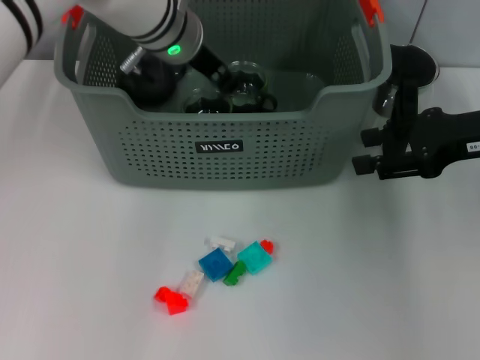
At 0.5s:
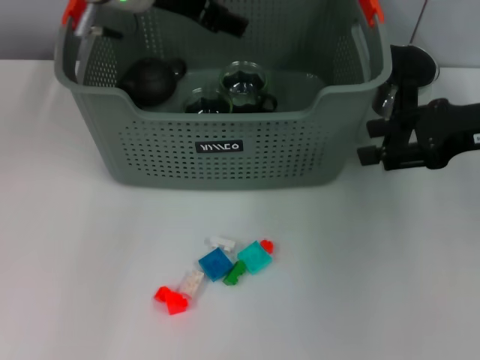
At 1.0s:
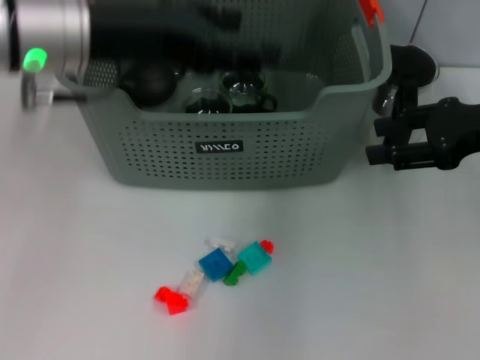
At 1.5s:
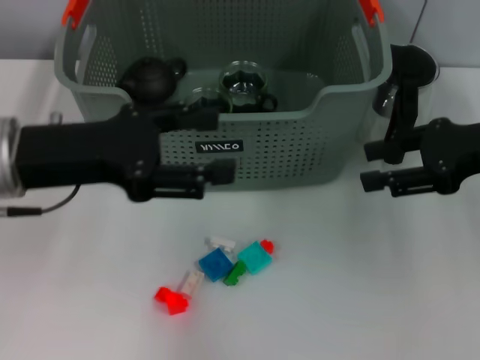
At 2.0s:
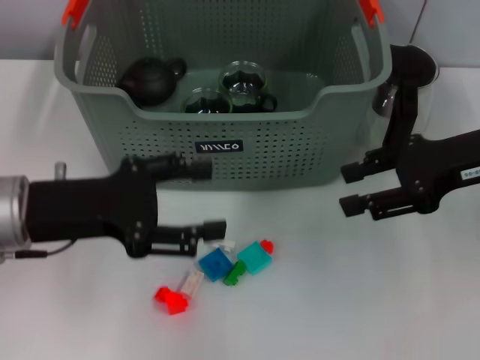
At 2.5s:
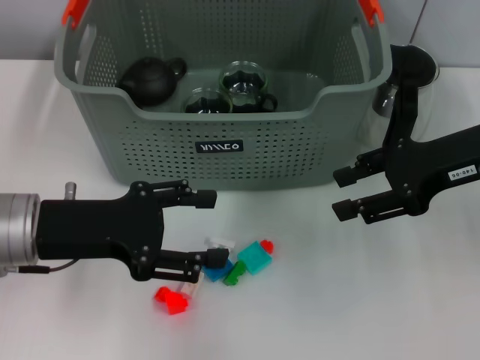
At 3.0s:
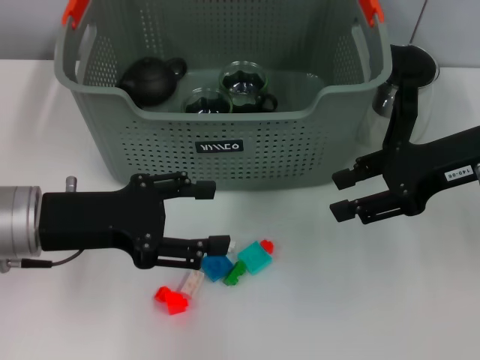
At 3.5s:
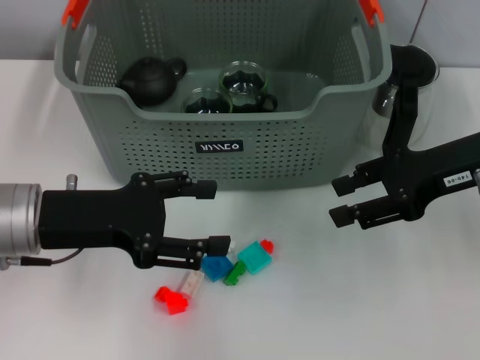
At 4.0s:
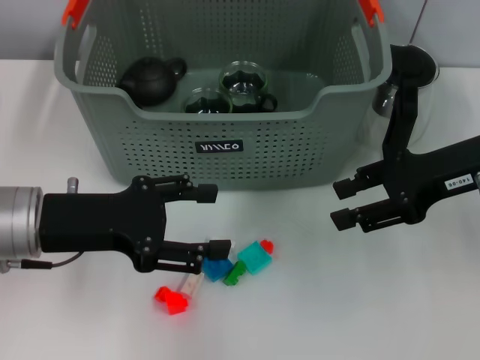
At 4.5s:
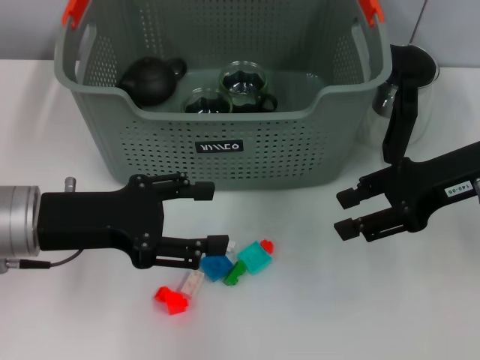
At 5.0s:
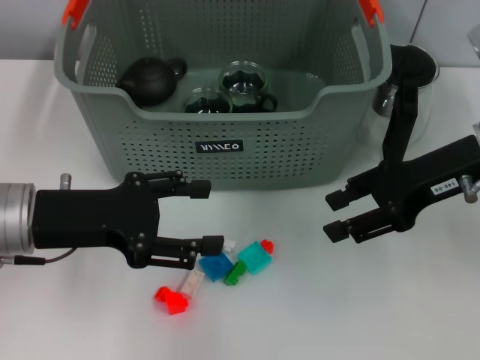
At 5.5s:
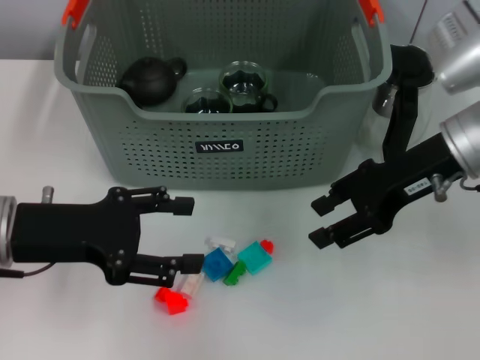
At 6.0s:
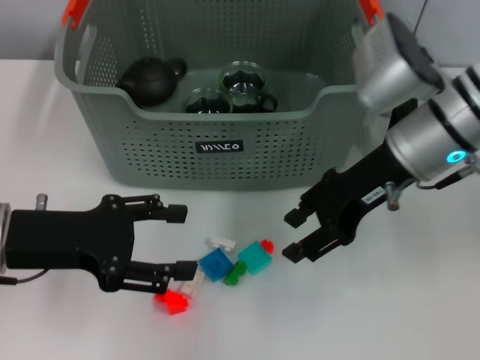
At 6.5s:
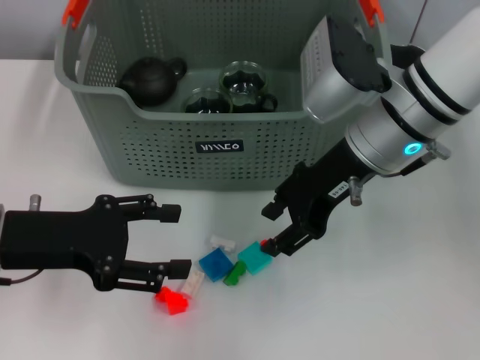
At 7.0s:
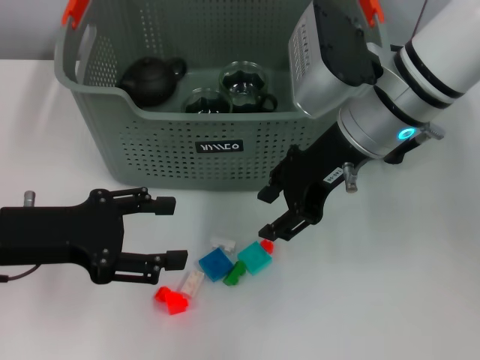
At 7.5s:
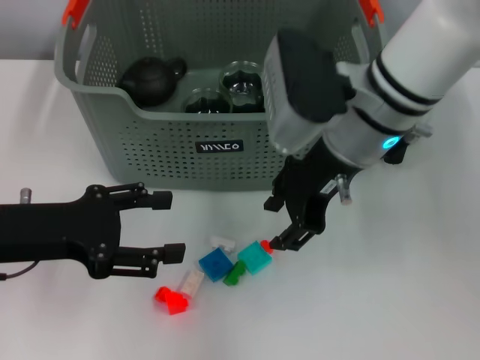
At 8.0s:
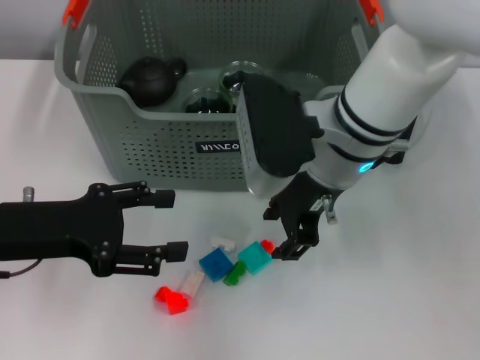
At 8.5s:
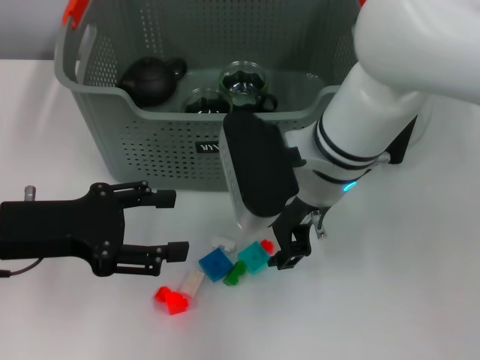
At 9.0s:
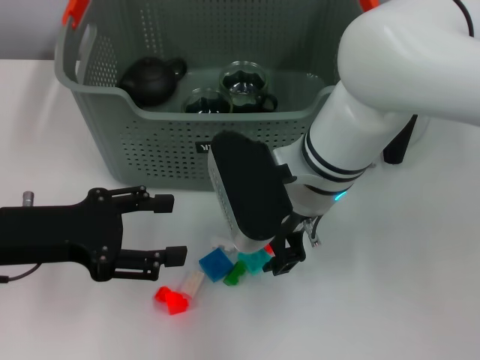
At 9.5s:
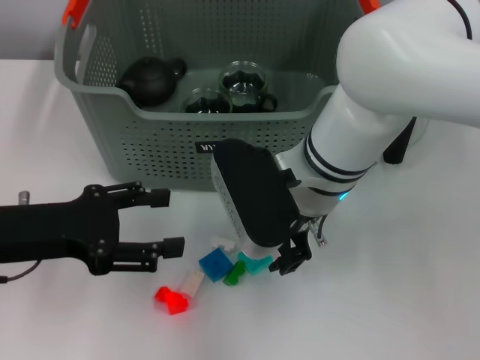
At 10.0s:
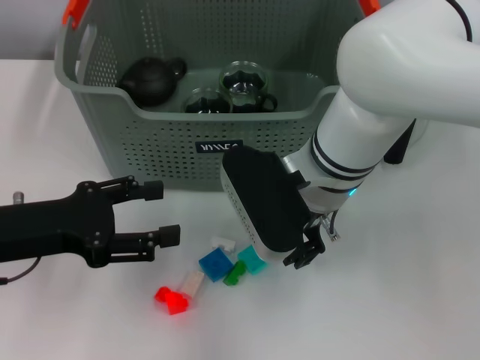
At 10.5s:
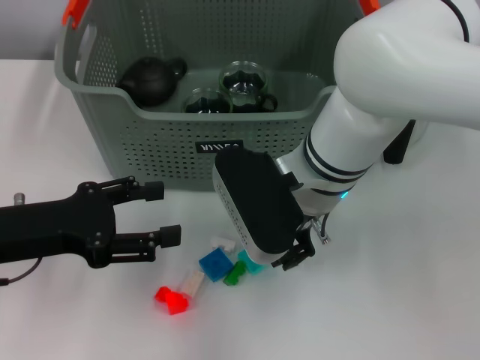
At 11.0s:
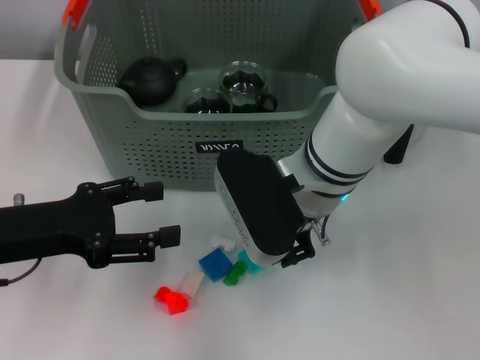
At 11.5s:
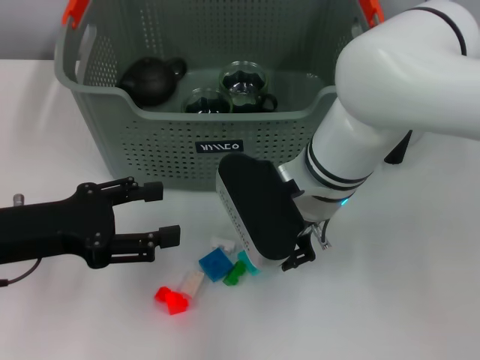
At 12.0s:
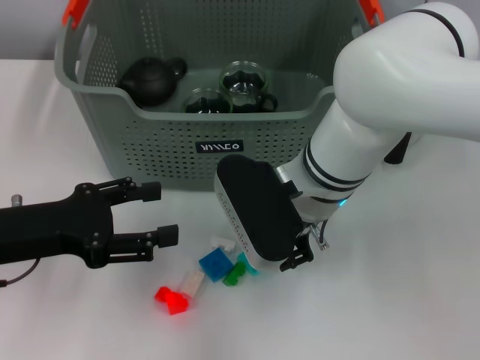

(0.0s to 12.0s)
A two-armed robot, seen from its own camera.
Task of the whole recording: pick up the teacup on the table and place it into the storage bin, pick up the block on the table and place it into the storage bin.
0.0s - 2.0s: The left gripper travels backward and to the left by roughly 25 cm, and opens.
2.0s - 4.0s: The grippers move only a little.
4.0s - 6.0s: The right gripper shifts some 10 cm to the left.
6.0s - 8.0s: The right gripper shifts about 10 cm to the left.
10.0s - 12.0s: Neither gripper changes place.

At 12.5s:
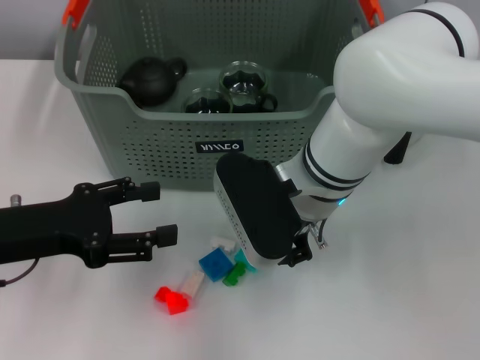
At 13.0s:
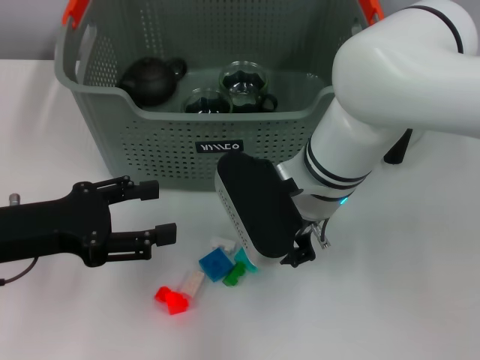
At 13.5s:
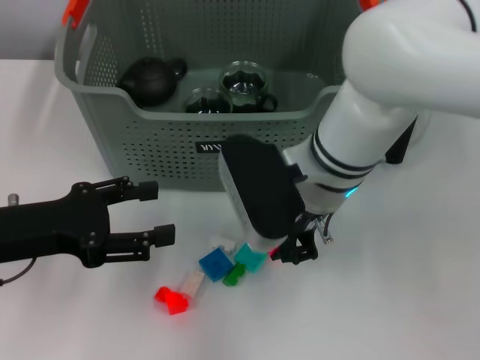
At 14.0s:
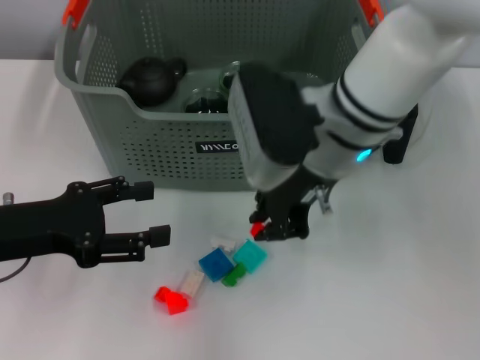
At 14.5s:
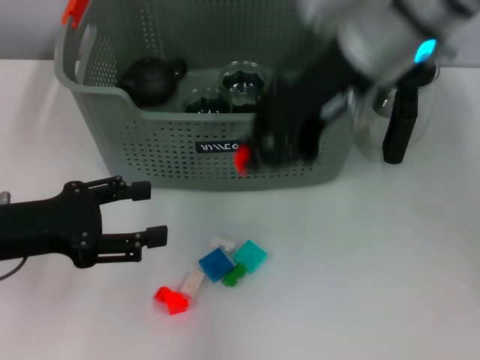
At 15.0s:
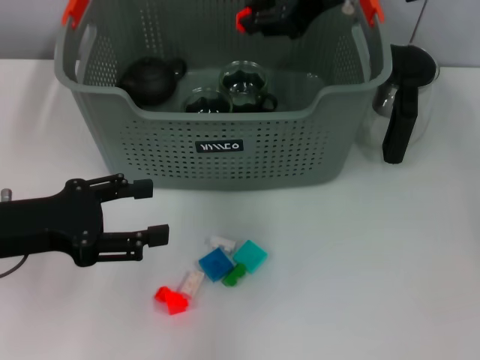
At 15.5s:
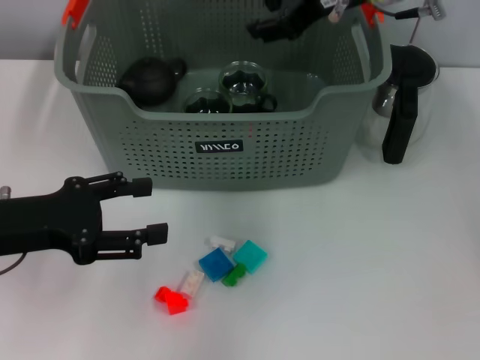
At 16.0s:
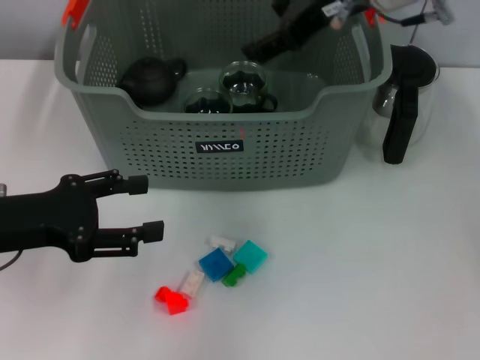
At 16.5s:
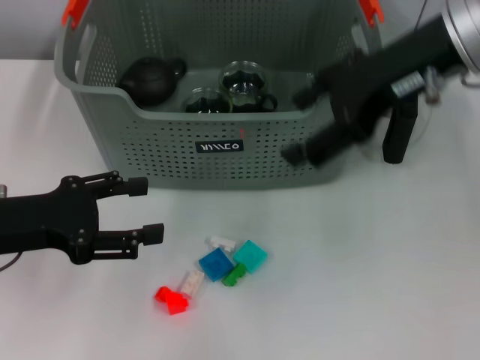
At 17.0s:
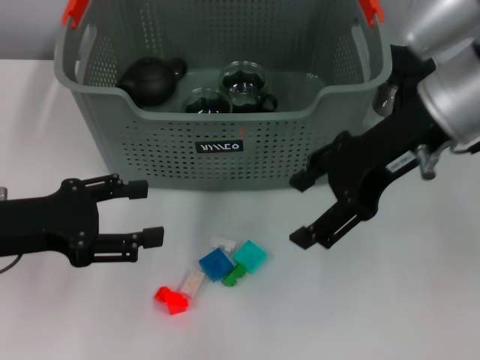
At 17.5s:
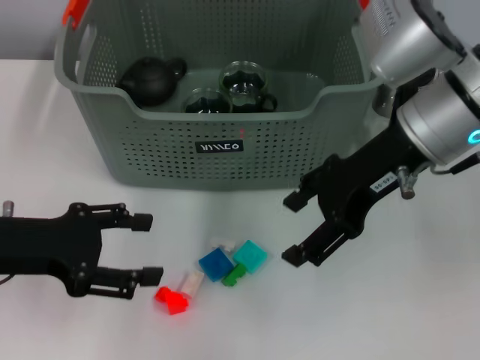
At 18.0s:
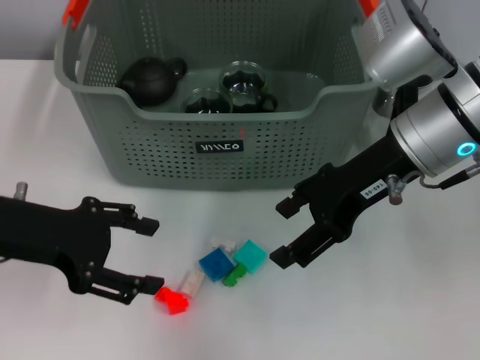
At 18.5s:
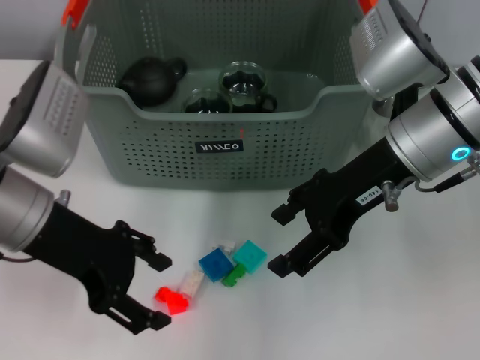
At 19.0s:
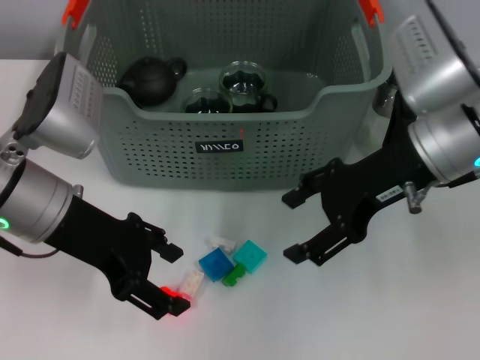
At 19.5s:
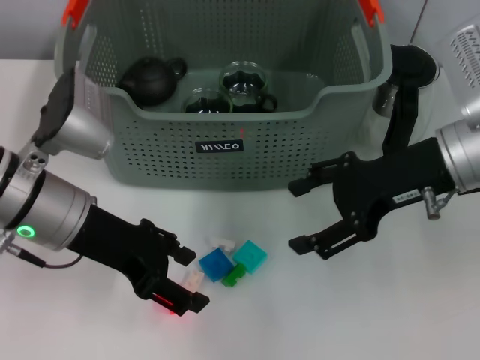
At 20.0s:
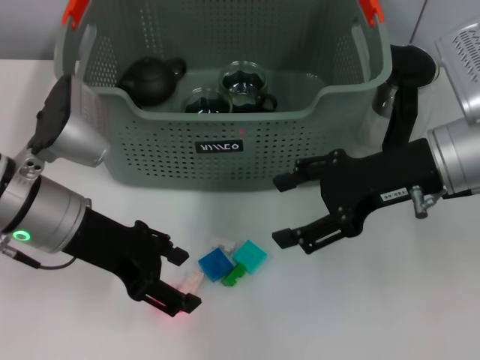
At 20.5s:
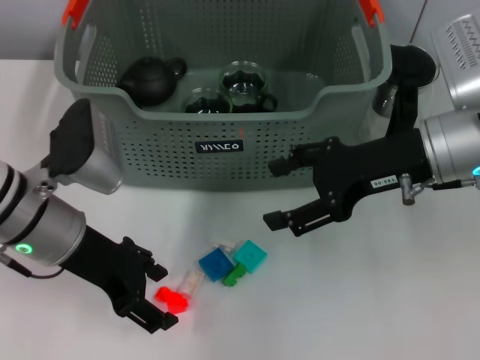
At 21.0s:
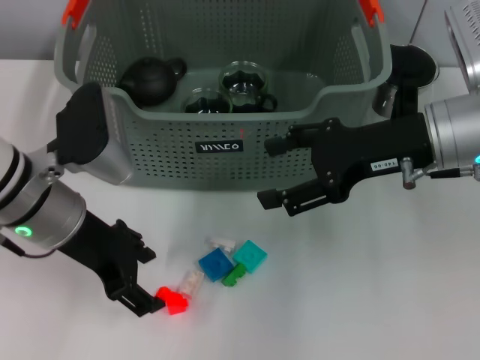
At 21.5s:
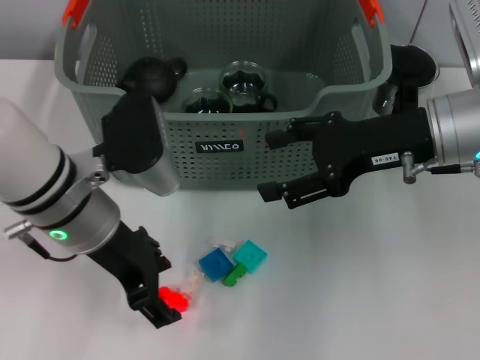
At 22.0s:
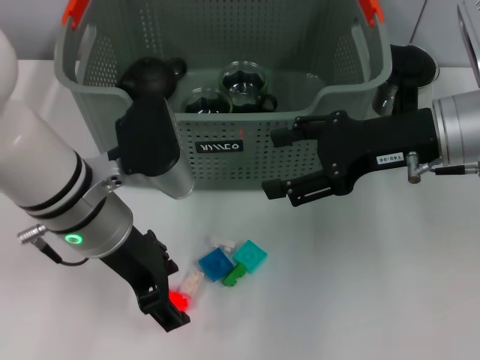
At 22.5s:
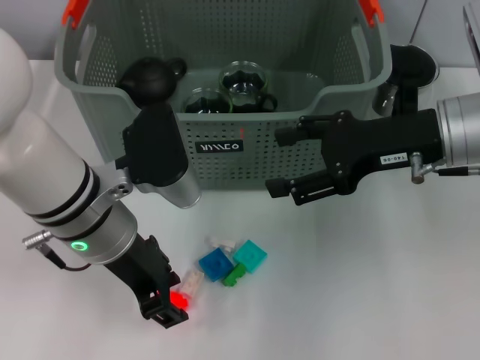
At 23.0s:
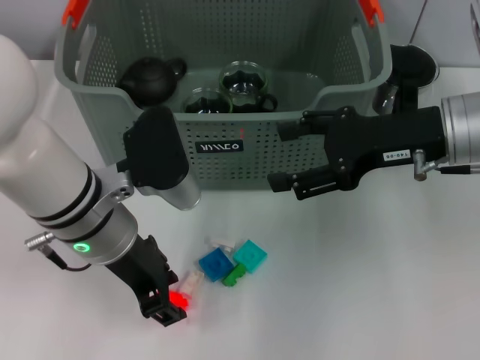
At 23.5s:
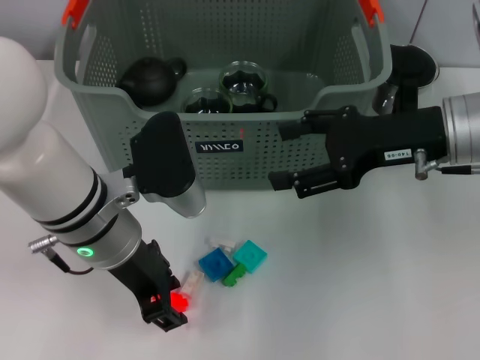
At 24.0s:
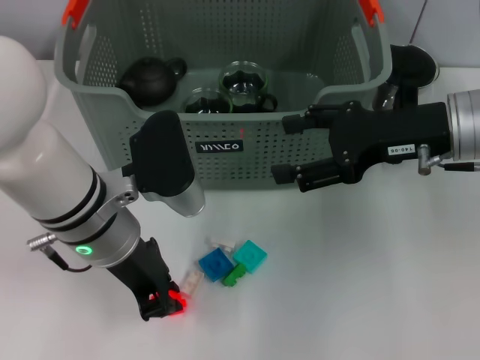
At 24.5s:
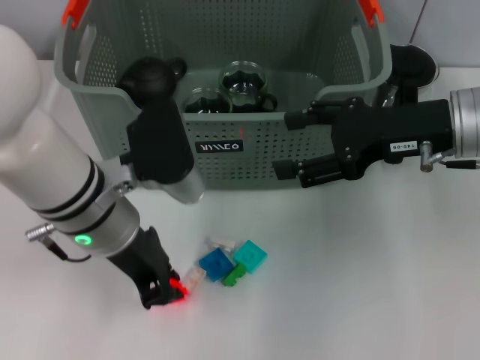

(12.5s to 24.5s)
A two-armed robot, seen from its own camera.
Task of the whole recording: pick up the teacup on the table and place it into the storage bin, pick up the block on the table and place it into the storage bin.
Step, 13.5s - 15.5s: Place the orange block in the storage box with right gripper.
Step, 16.0s - 24.0s: Grasp the orange block with left gripper.
12.5s - 14.5s: The right gripper shifts approximately 15 cm upward.
14.5s - 16.5s: The right gripper is displaced to the right by about 5 cm, moves some 5 cm forward and comes back, and opens its fingers.
16.5s - 18.5s: The right gripper goes approximately 10 cm downward, while the left gripper moves to the right, about 5 cm.
18.5s - 20.5s: The right gripper shifts by some 5 cm.
20.5s - 22.5s: The left gripper heads to the right, covering approximately 5 cm.
22.5s - 24.5s: The left gripper closes.

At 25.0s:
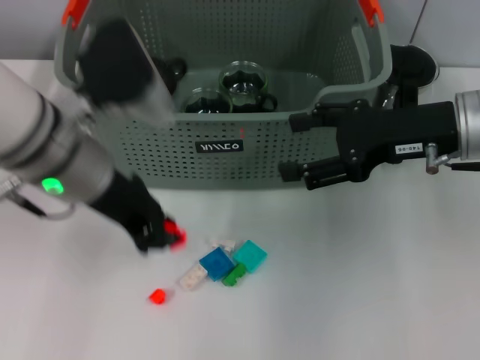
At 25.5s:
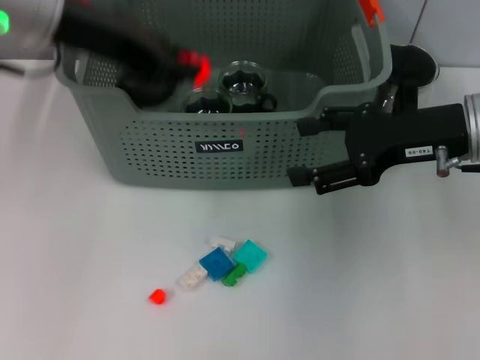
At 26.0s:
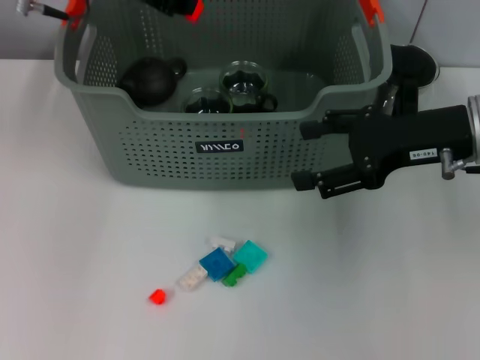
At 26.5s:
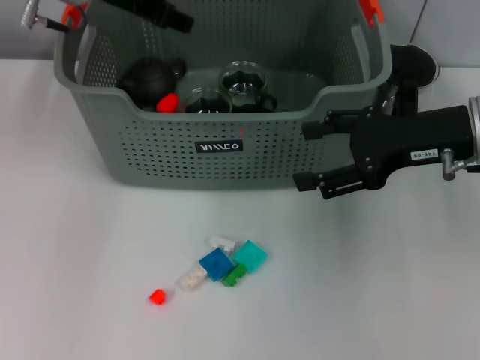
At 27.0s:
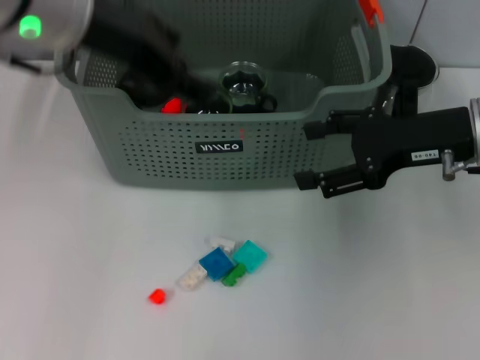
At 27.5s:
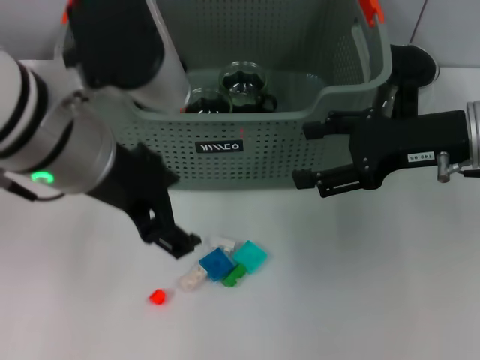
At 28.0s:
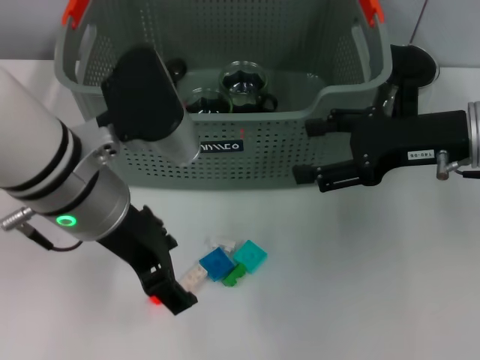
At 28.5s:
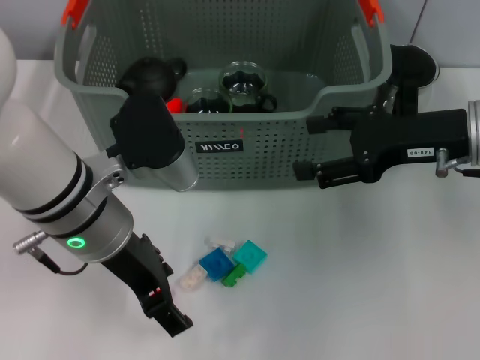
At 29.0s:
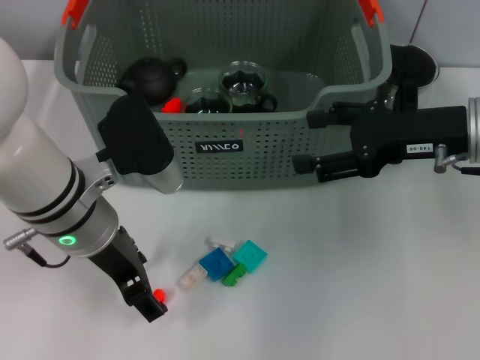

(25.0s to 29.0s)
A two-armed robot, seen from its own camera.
Task of the whole recording: pick up the teacup on the table and place it into the storage bin, pick up the block on the table and place it into the storage bin.
25.0s - 27.0s: The left gripper goes about 10 cm upward, moves some 15 cm forward and comes back, and opens.
27.0s - 29.0s: The left gripper is displaced downward by some 15 cm.
